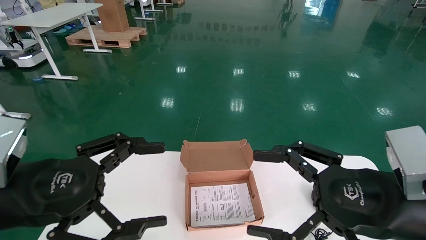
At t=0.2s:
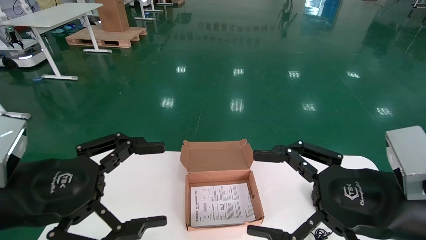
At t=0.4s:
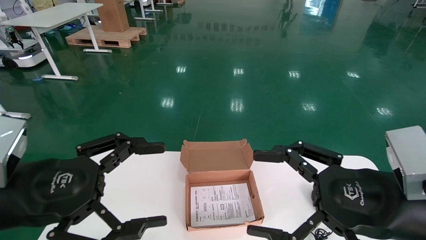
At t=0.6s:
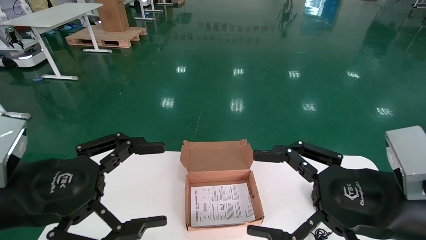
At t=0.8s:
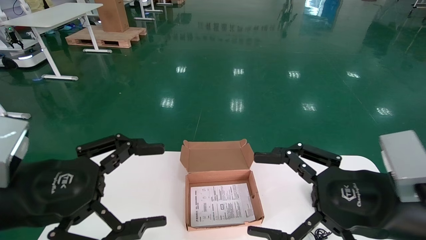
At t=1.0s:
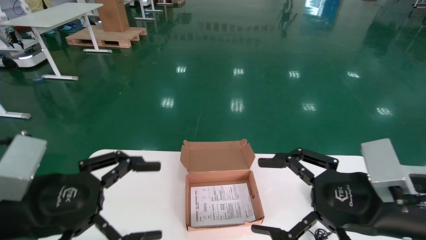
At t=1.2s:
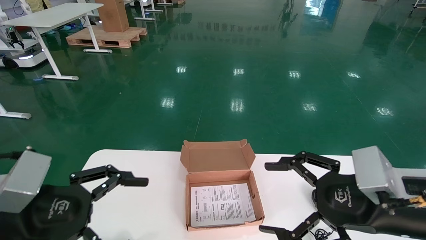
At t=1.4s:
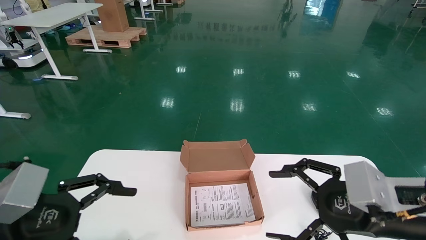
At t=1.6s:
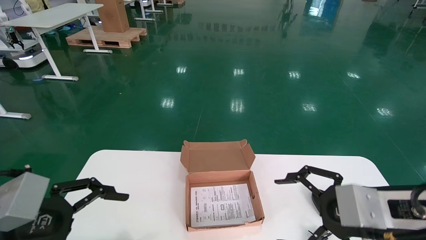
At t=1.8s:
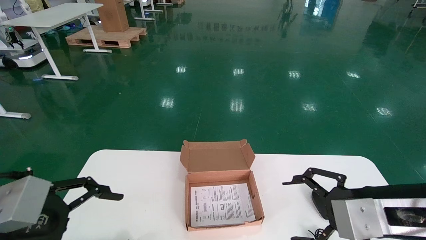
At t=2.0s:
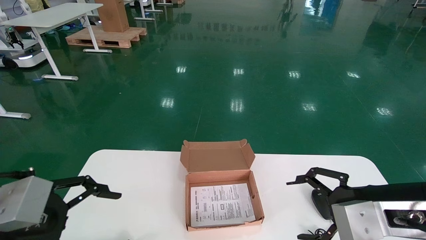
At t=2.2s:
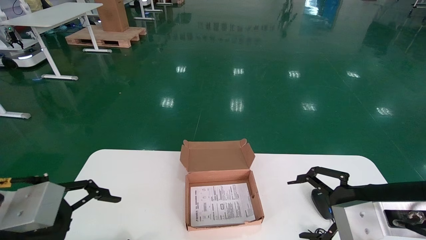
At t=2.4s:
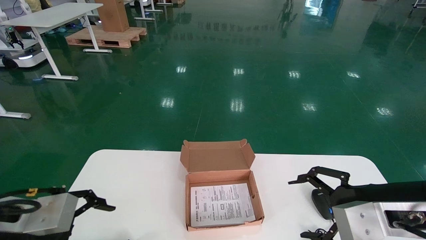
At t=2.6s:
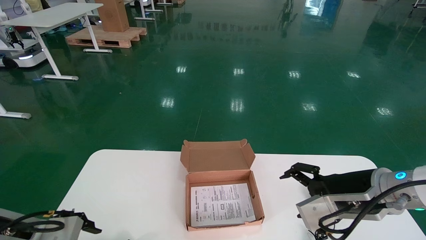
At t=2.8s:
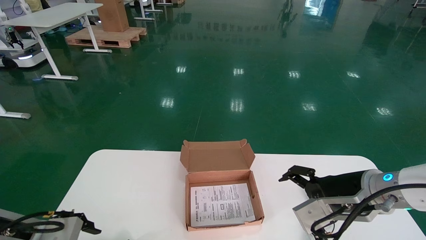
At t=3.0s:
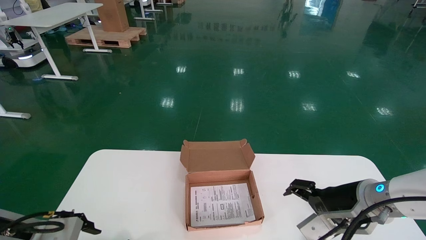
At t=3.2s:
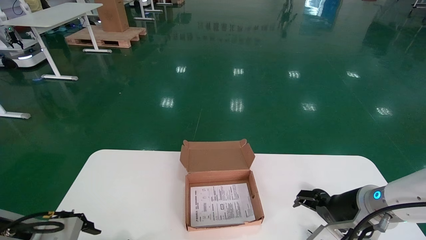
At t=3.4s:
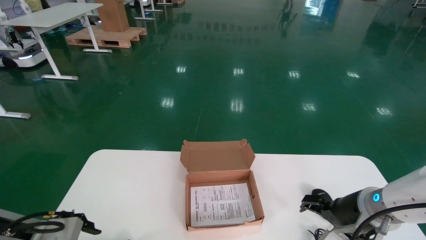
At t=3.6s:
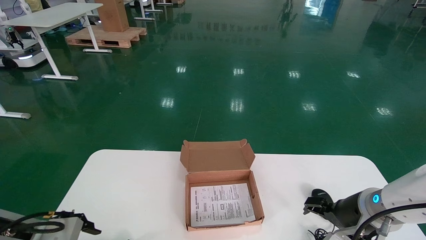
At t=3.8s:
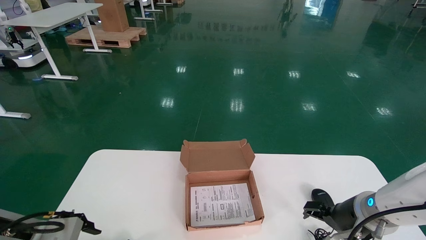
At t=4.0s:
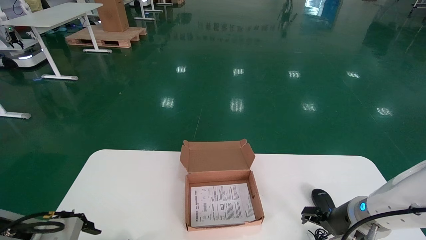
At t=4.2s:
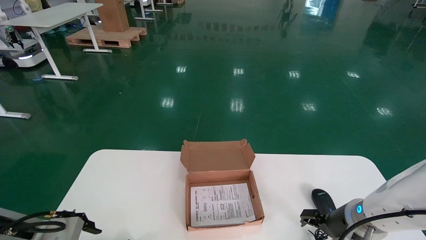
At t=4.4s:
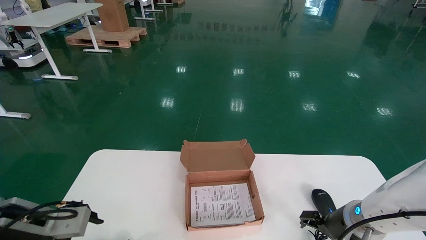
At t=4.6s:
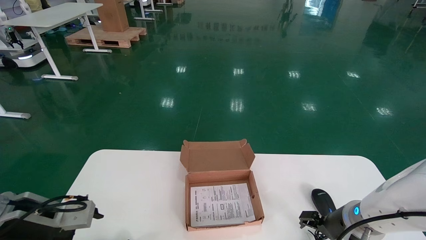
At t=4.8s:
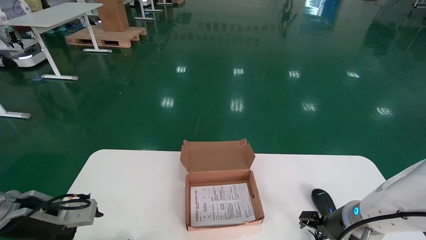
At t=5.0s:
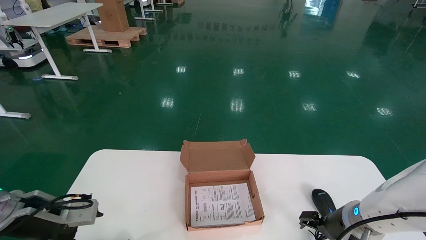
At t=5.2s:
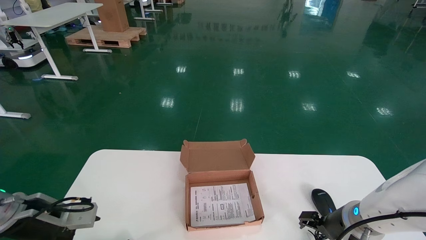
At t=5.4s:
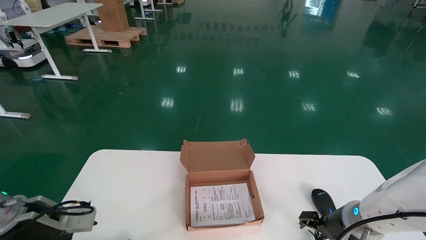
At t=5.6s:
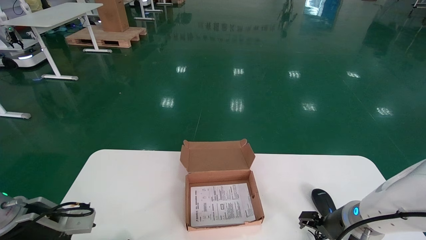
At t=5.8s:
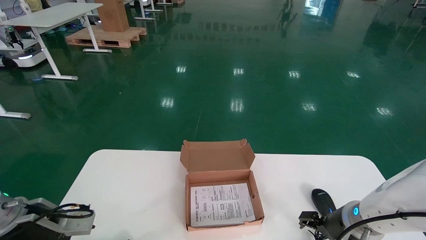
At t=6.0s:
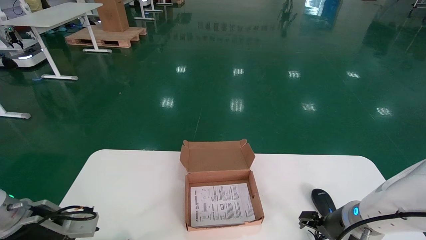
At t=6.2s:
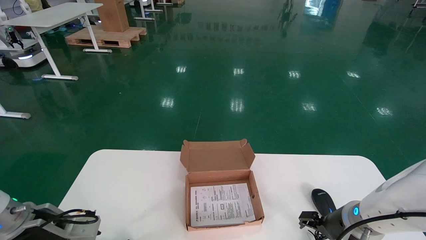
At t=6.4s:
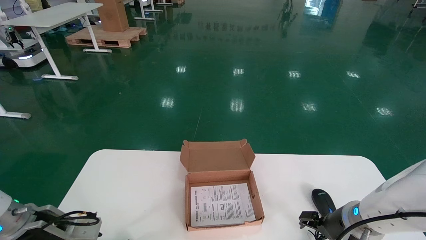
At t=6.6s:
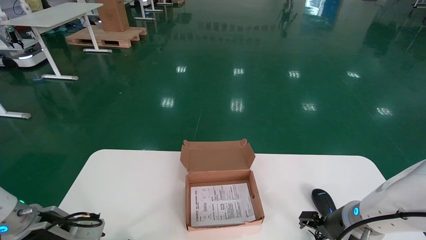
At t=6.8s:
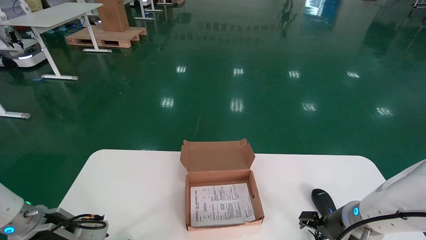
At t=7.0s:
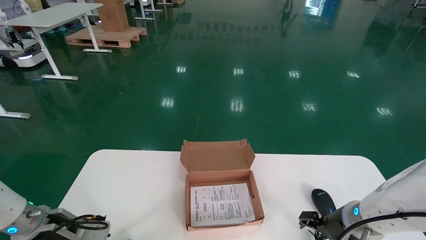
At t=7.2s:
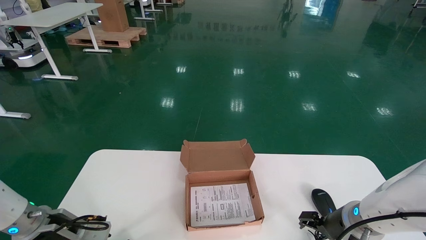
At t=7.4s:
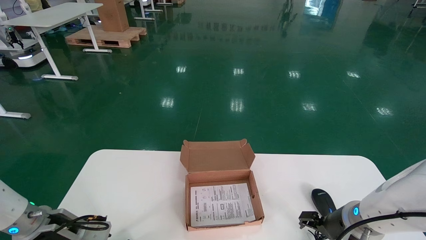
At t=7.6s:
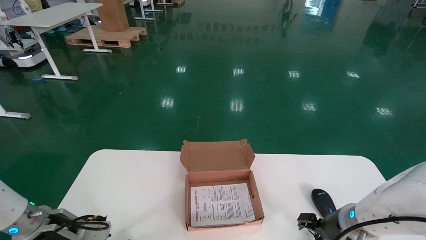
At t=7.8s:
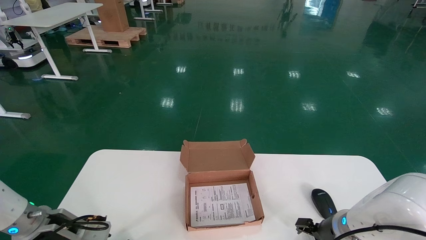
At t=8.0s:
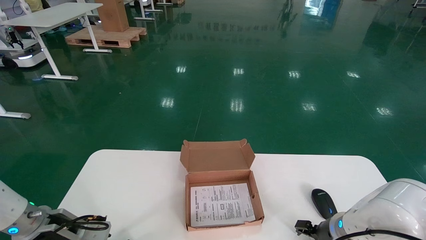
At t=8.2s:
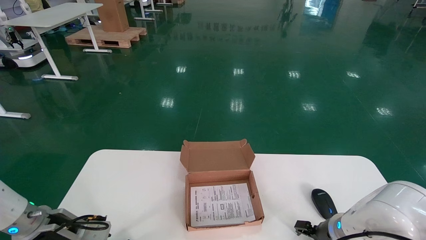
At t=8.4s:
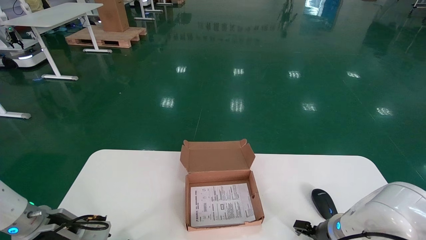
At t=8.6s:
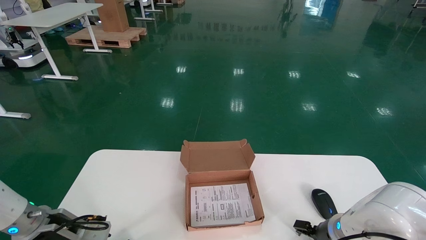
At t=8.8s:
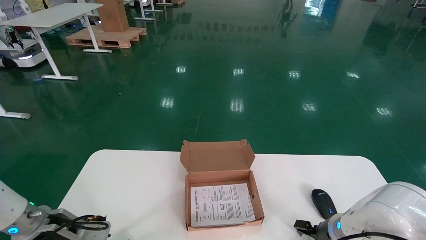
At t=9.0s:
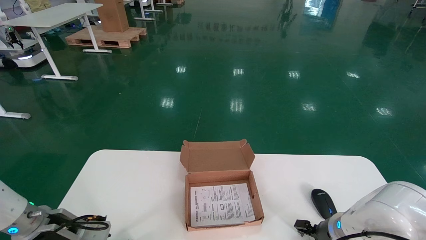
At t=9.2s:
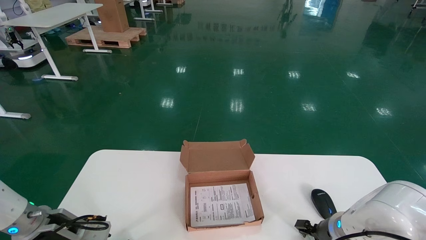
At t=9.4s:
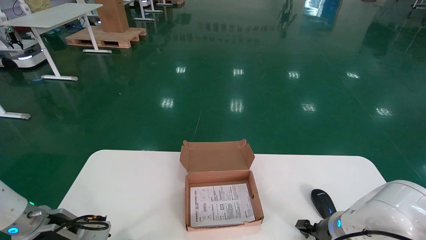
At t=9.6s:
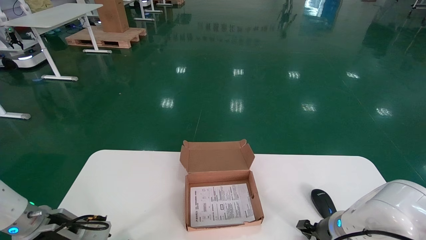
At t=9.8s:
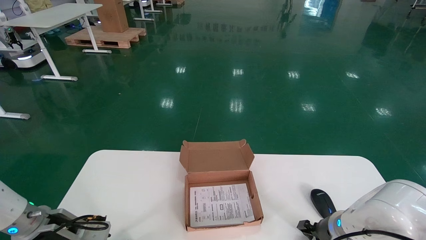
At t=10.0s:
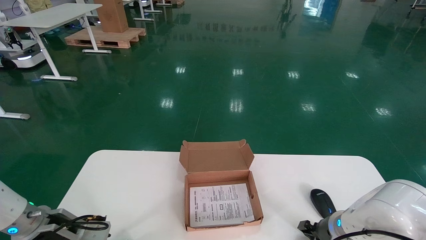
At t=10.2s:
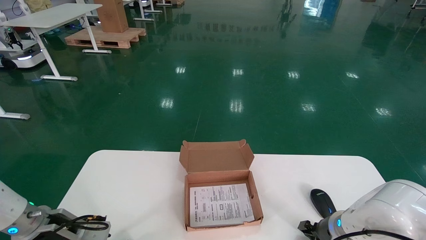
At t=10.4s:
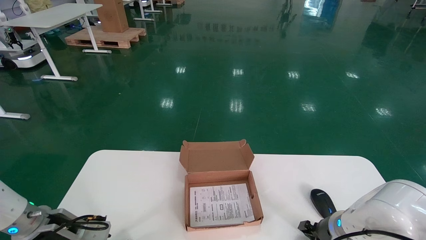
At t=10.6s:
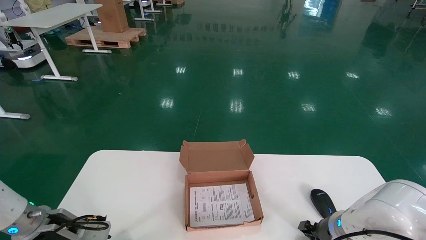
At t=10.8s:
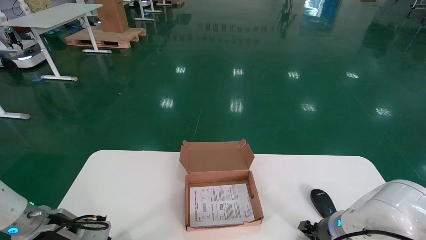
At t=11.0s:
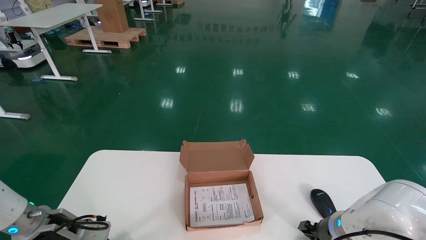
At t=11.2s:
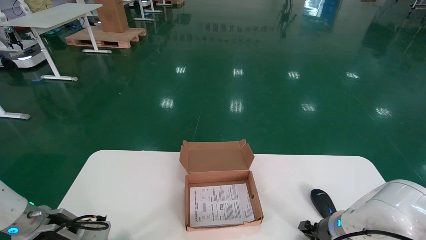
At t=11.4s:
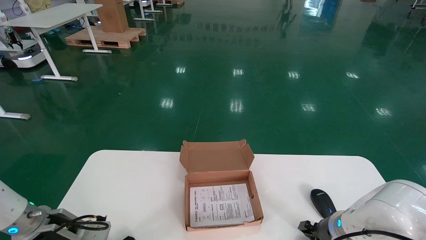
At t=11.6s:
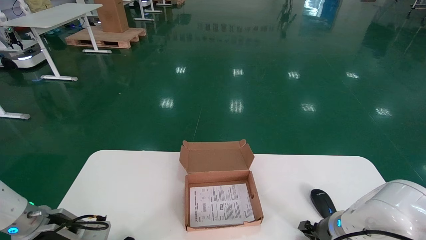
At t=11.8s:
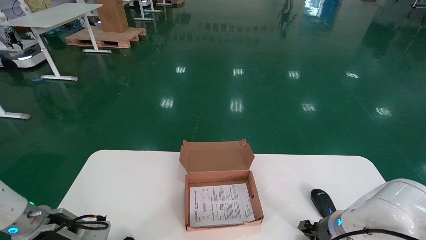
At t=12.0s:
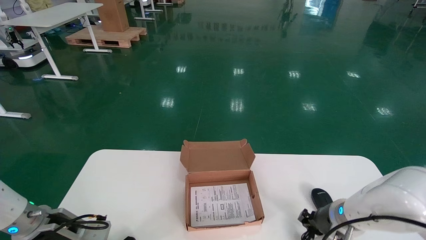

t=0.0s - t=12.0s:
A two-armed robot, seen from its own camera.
t=1.6s - t=3.0s: The right gripper ends up roughly 5 cm from where it was. Meanwhile the left gripper moves downward and forward, about 10 cm.
t=3.0s - t=4.4s: The right gripper travels downward and forward by roughly 10 cm.
t=4.4s - t=6.0s: The left gripper is displaced forward by roughly 10 cm.
t=6.0s - t=7.6s: There are only small adjustments of the grippers.
t=7.6s - t=9.0s: The right gripper heads downward, covering roughly 5 cm.
t=9.0s - t=10.4s: The right gripper closes up.
t=10.4s - t=12.0s: The left gripper closes up, while the right gripper closes.

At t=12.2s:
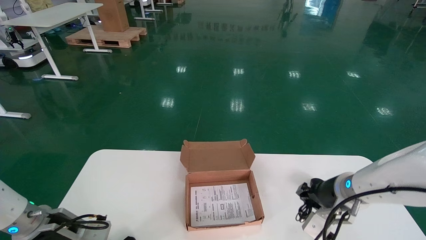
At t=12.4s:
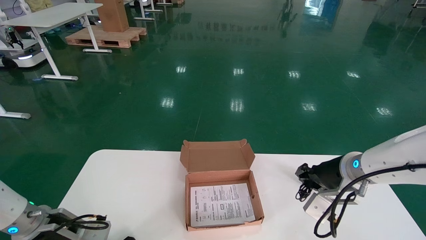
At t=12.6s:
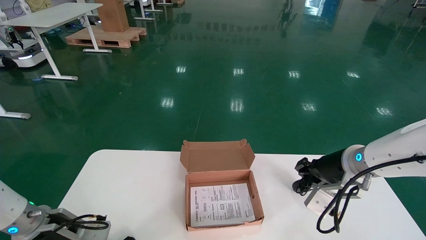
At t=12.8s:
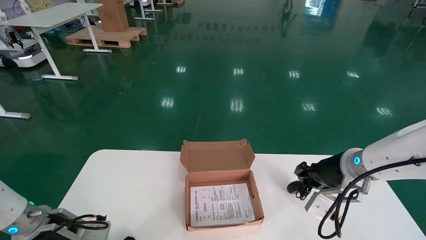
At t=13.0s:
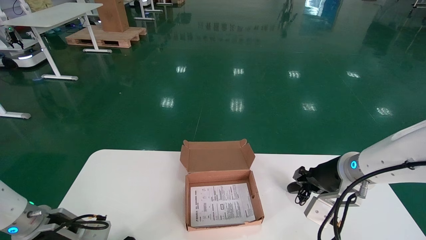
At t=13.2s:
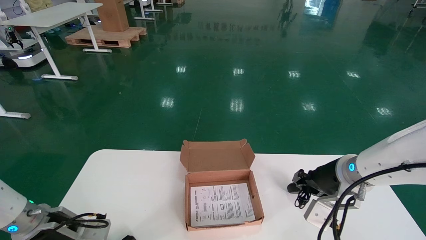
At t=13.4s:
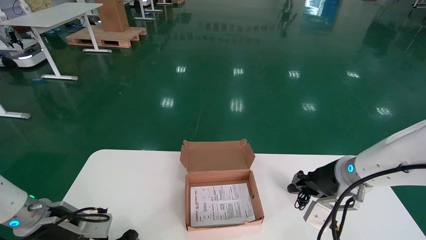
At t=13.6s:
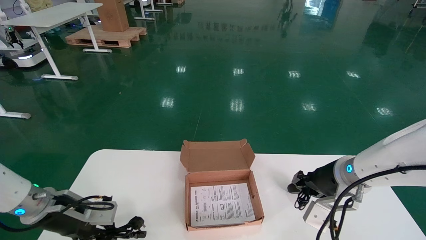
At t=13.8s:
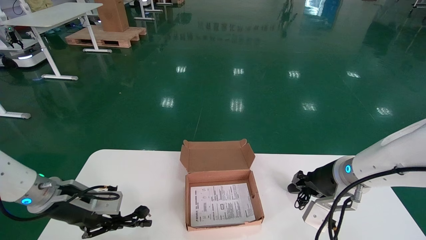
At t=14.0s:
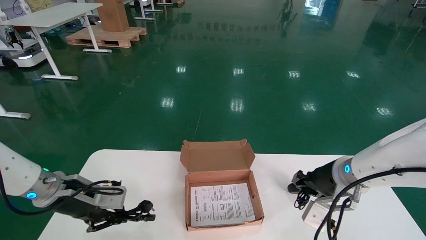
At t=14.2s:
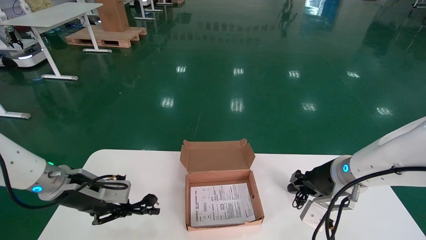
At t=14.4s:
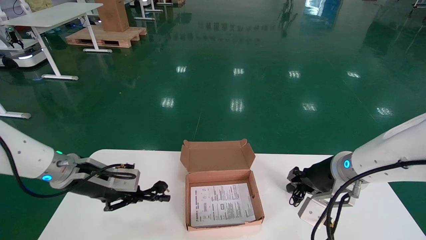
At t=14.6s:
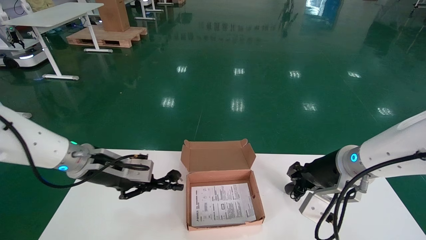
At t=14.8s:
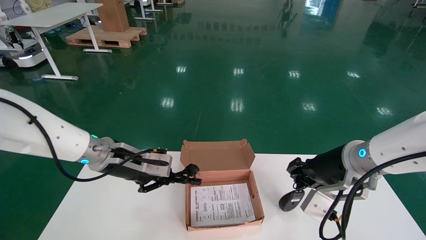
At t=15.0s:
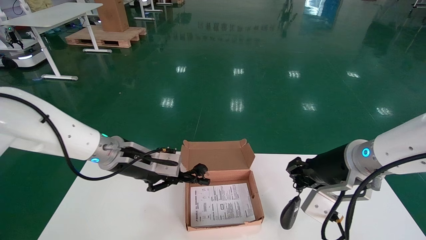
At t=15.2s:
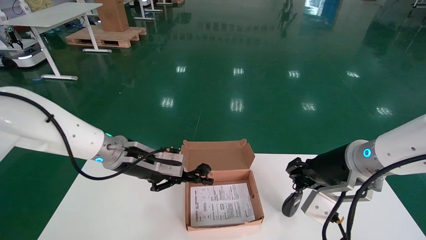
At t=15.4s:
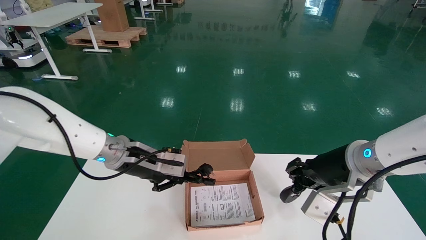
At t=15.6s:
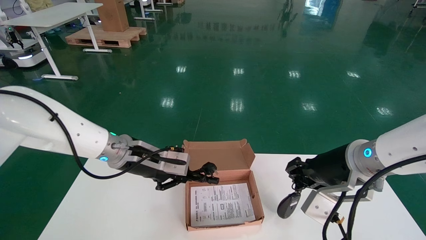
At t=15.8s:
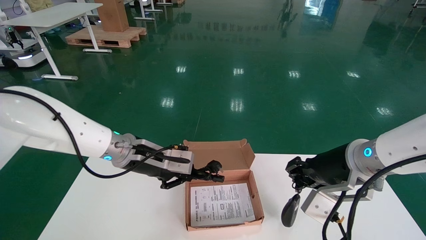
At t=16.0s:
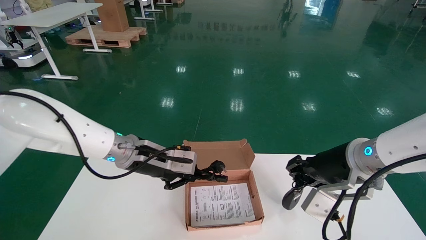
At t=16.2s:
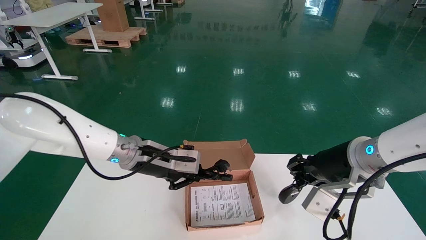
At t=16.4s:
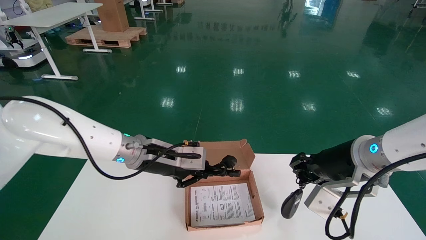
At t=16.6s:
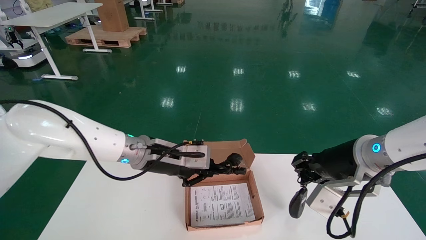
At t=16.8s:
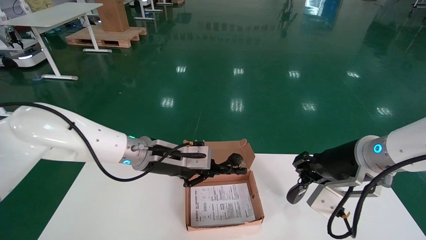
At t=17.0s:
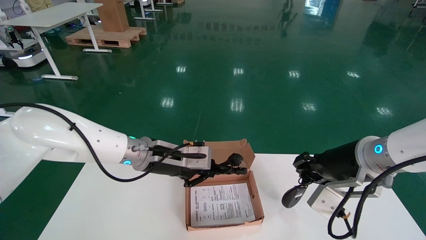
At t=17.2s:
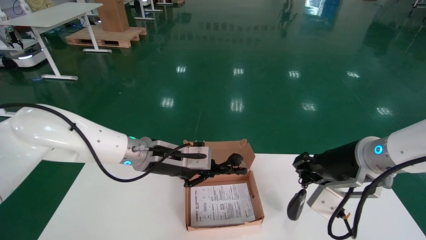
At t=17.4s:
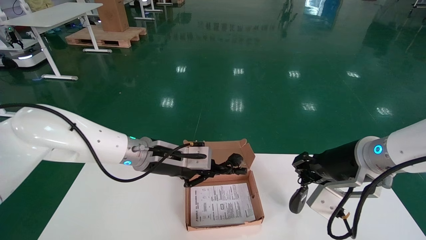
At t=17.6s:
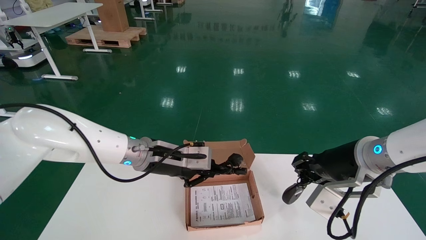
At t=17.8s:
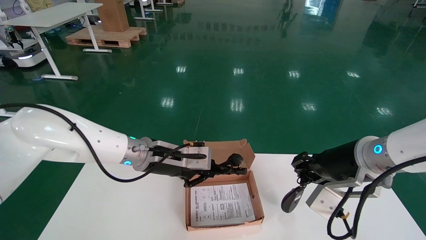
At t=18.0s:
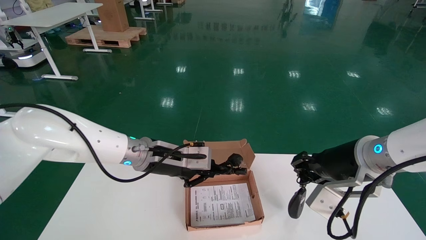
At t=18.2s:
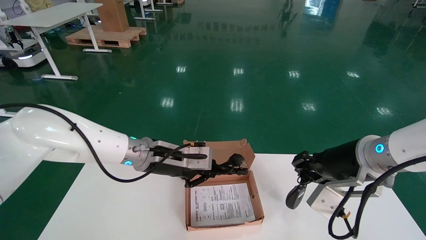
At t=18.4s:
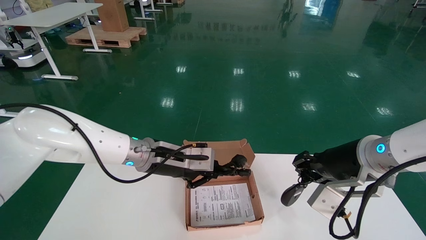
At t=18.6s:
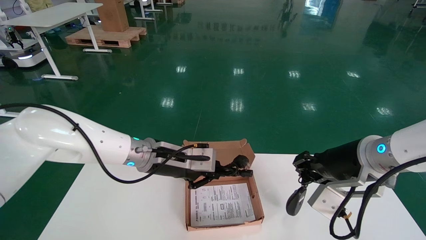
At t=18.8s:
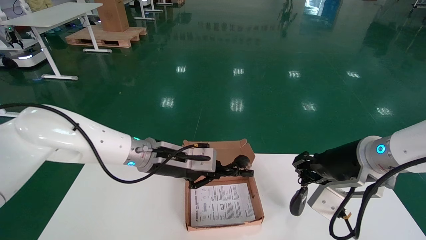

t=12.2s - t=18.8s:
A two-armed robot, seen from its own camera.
t=12.2s - t=13.8s: The left gripper closes up. The right gripper heads upward, covering roughly 15 cm.
t=13.8s - t=15.4s: The left gripper moves upward, to the right and forward, about 15 cm.
t=15.4s - t=17.2s: The left gripper goes approximately 10 cm to the right.
t=17.2s - t=18.8s: Neither gripper changes place.
